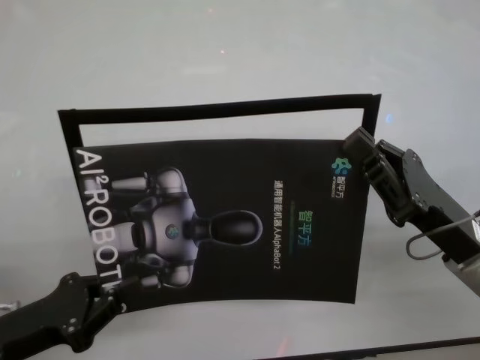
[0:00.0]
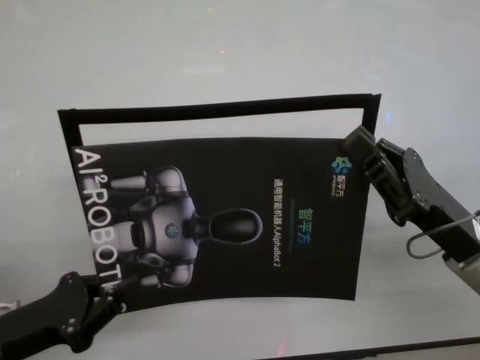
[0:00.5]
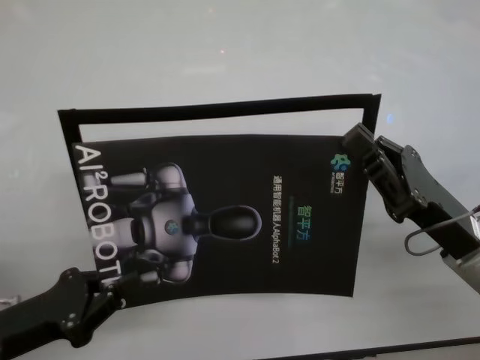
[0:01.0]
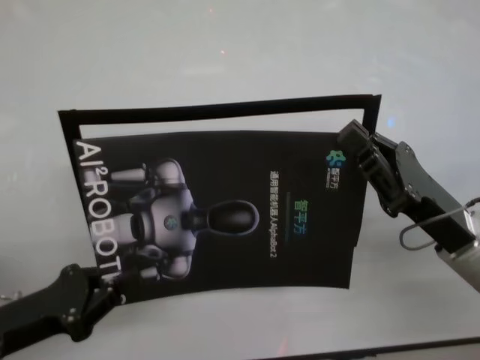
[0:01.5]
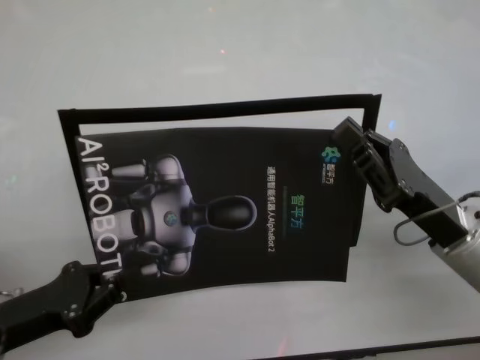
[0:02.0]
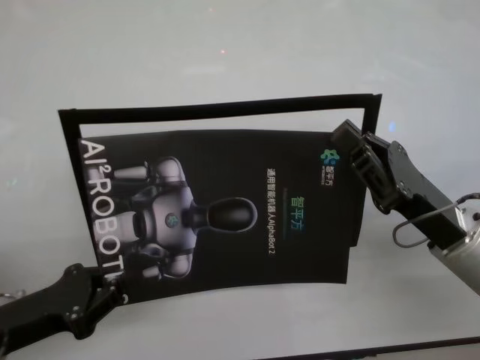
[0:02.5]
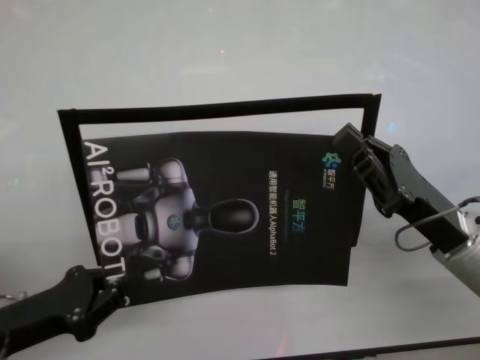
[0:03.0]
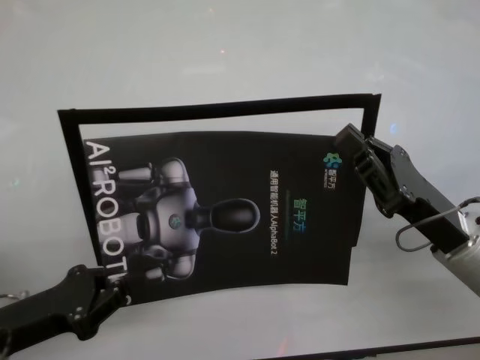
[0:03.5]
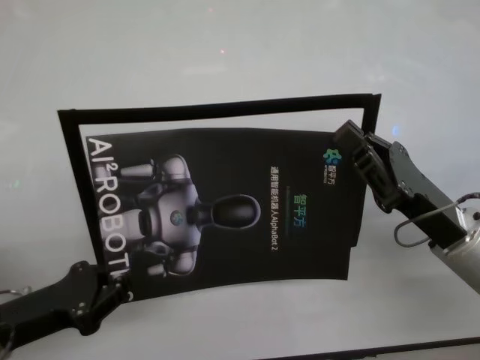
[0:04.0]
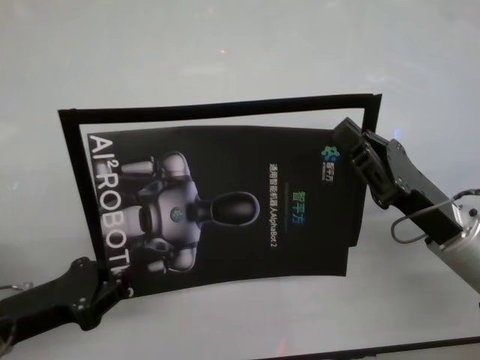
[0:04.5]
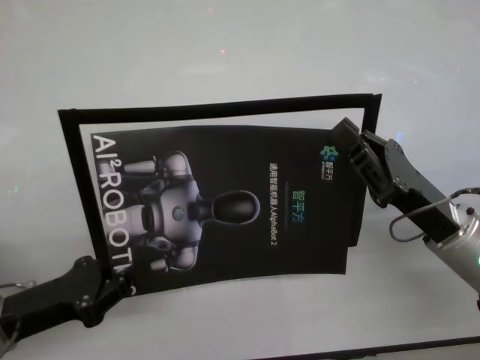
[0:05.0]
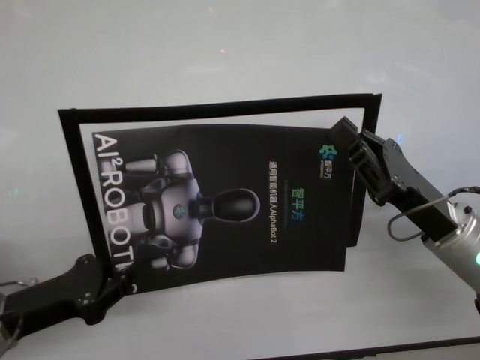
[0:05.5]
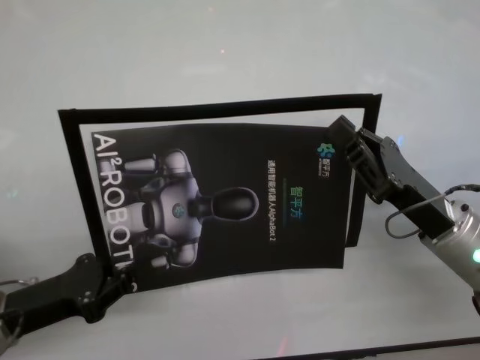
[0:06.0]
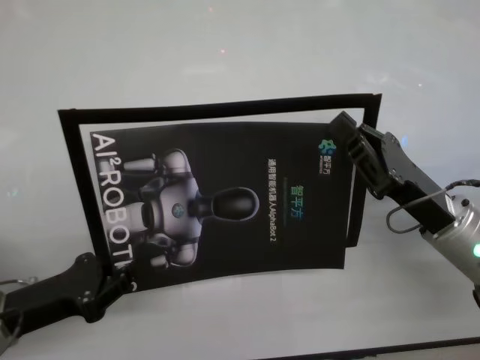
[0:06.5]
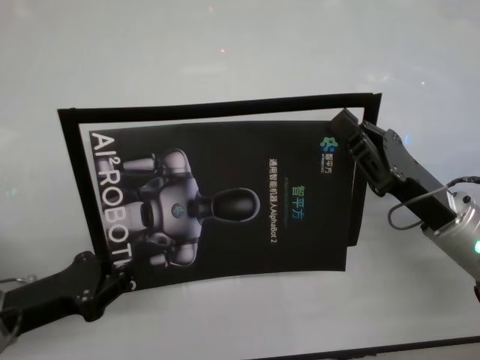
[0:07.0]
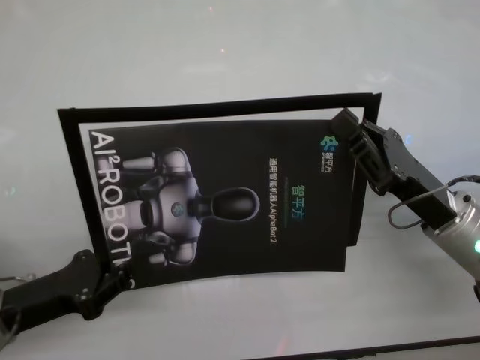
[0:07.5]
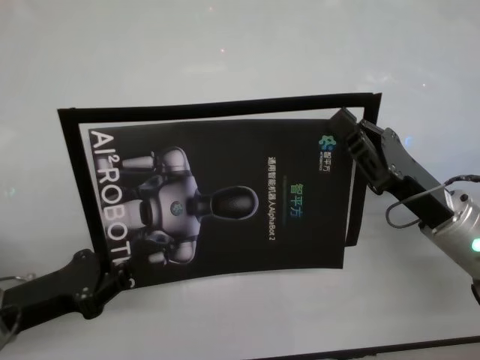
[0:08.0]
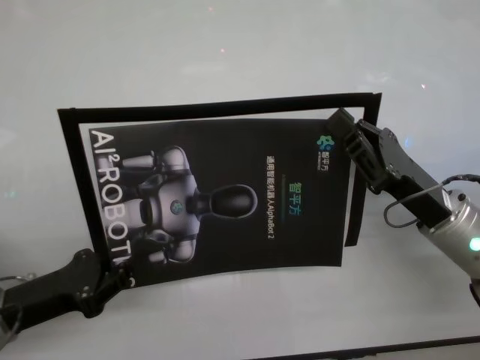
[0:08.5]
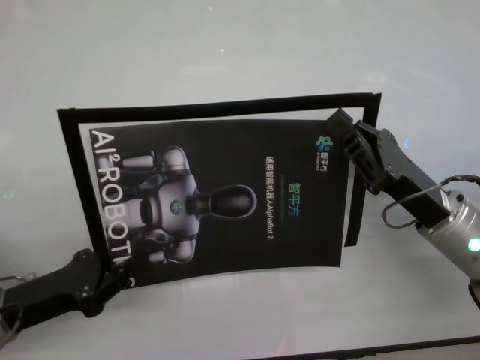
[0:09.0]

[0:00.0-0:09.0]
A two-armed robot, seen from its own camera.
Task of the whole recording: stick the poster on the table by hand.
Step, 0:00.0 to 0:07.0: Stick the advertisement in the top-right corner area with both grippers.

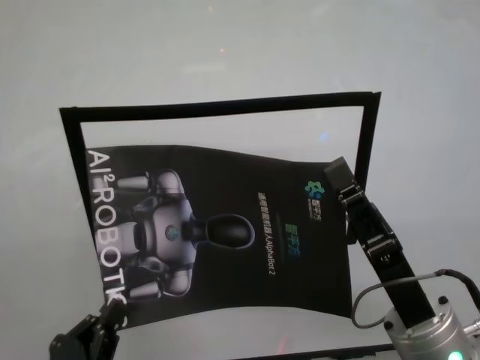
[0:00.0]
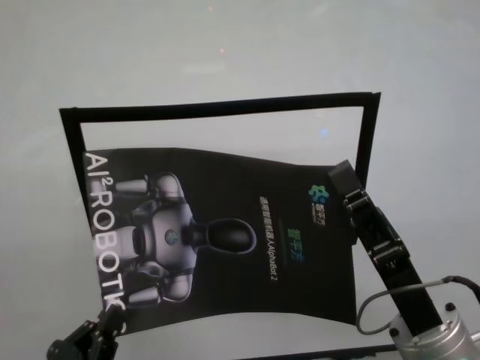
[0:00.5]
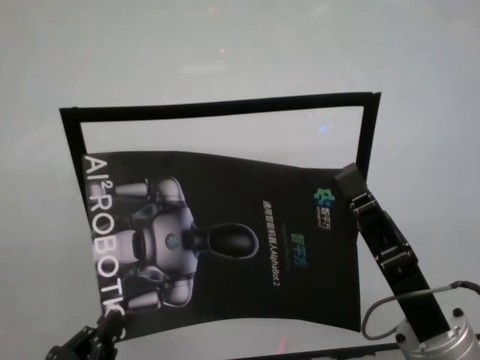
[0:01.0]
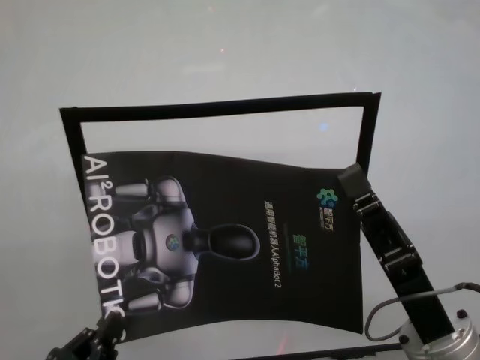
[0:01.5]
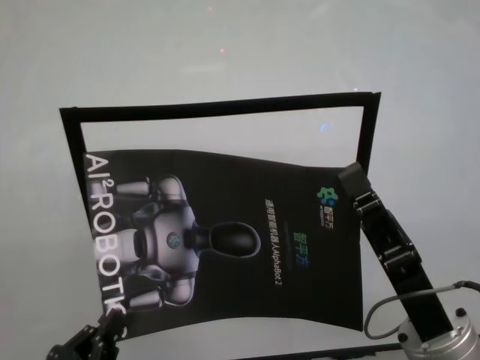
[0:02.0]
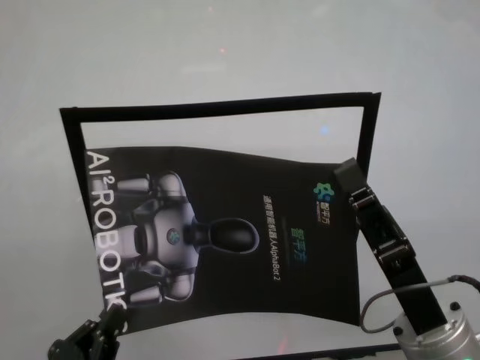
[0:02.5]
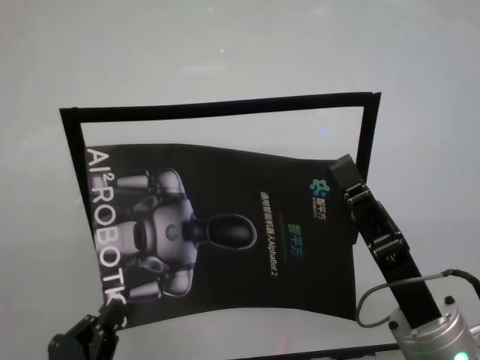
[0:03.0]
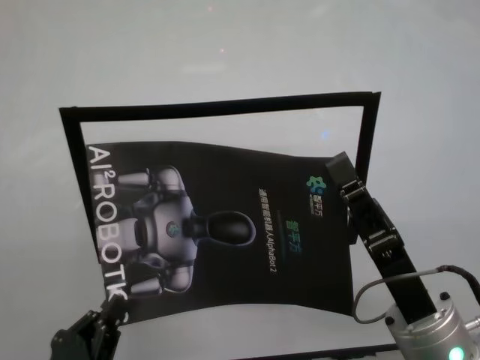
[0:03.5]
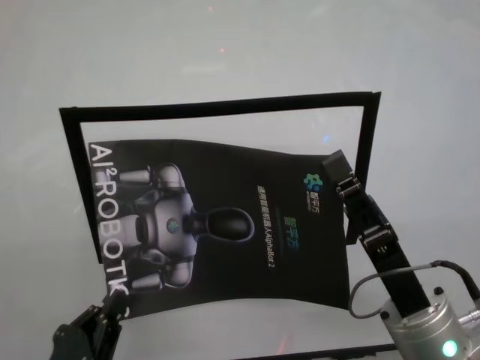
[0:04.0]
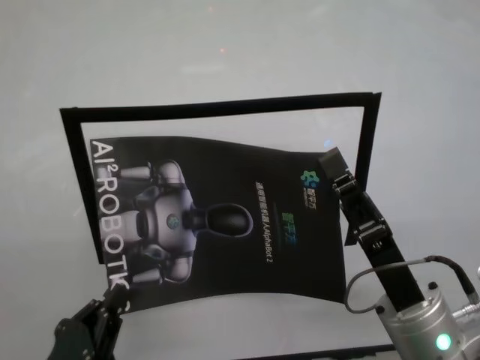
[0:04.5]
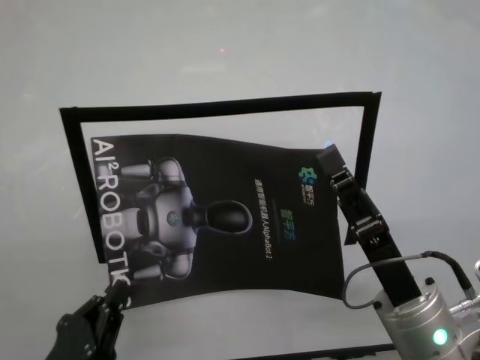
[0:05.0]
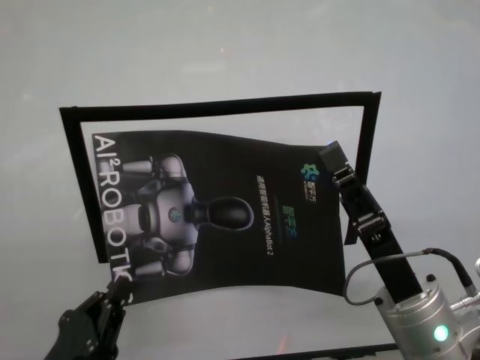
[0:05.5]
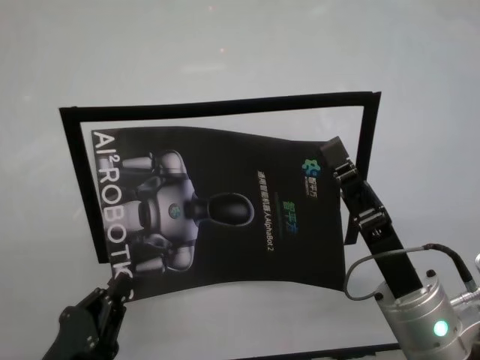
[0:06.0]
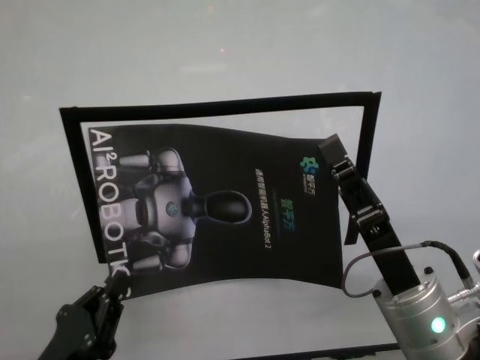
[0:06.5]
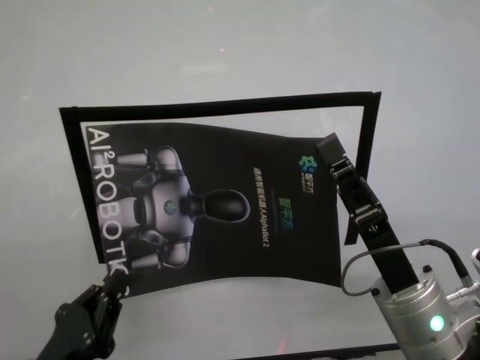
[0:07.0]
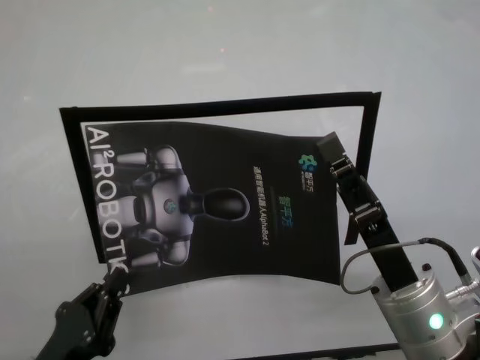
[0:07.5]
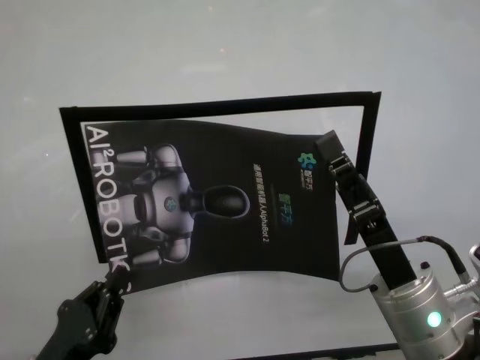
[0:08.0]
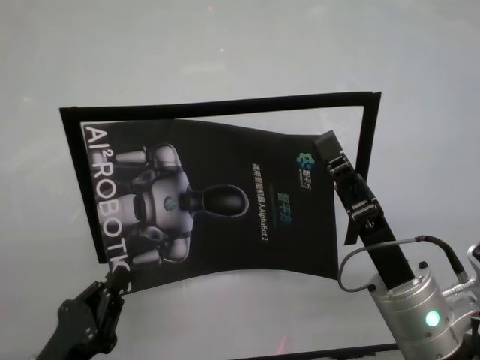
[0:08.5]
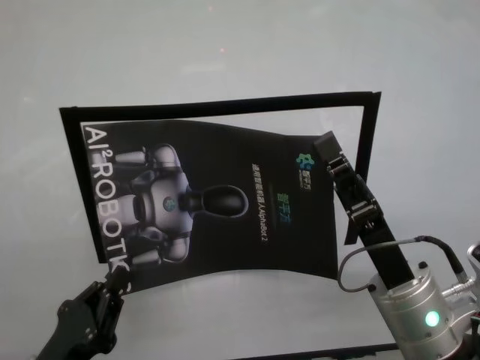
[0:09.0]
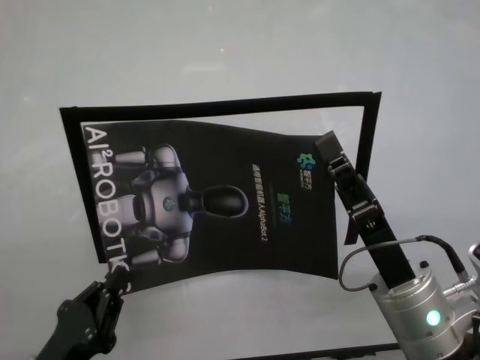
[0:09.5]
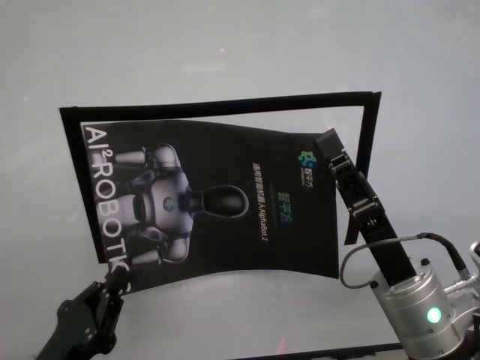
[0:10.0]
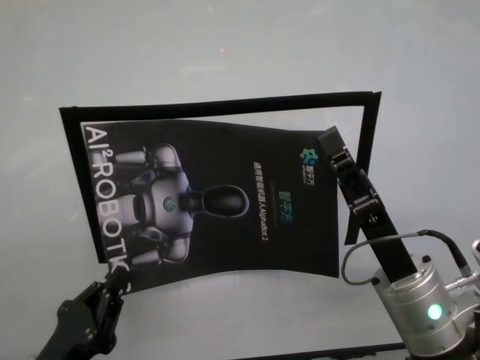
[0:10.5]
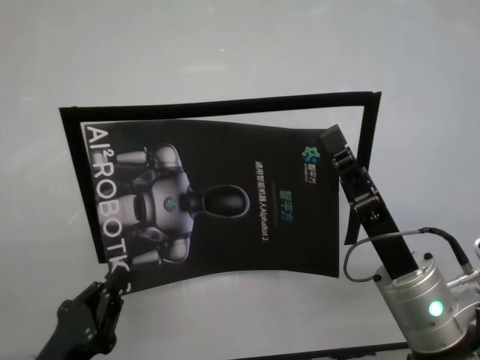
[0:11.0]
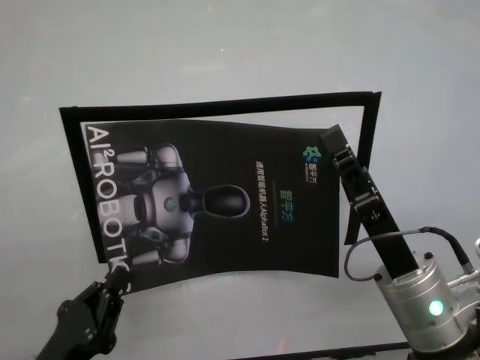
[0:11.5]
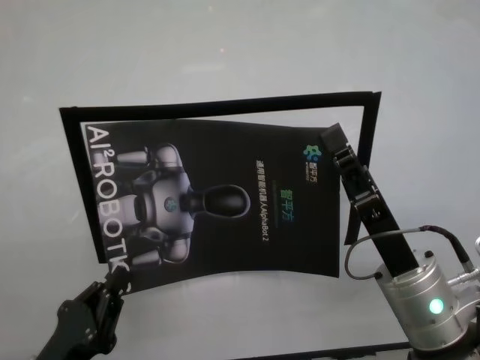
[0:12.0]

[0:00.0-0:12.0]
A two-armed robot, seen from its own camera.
Task of the whole recording: stick the poster on the table by hand.
Step, 0:00.0 to 0:09.0: Stick the advertisement in the top-right corner area with both grippers.
